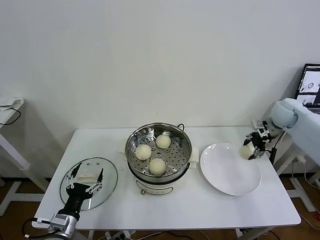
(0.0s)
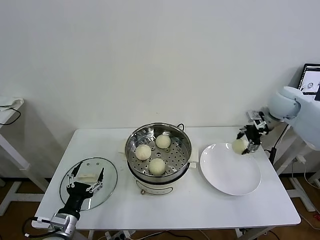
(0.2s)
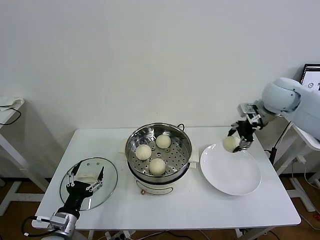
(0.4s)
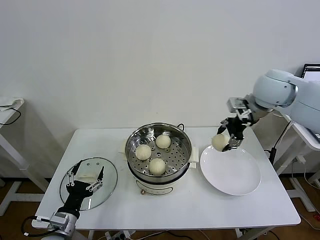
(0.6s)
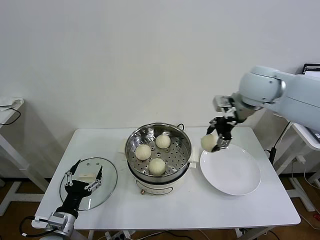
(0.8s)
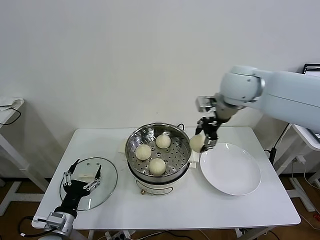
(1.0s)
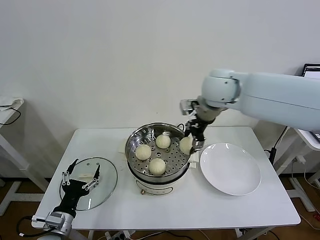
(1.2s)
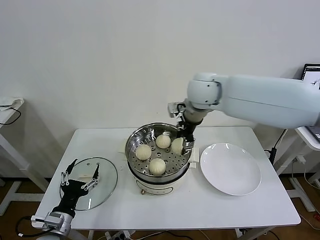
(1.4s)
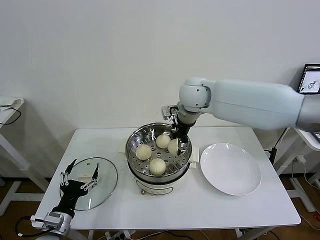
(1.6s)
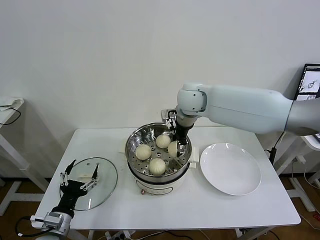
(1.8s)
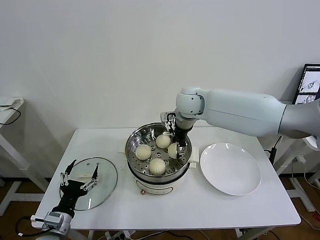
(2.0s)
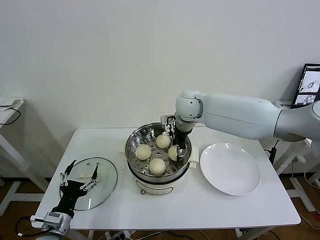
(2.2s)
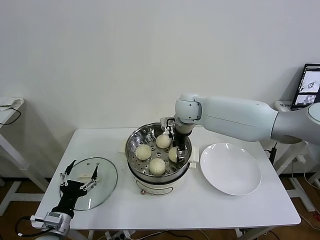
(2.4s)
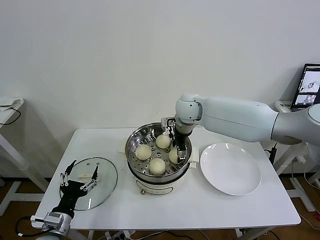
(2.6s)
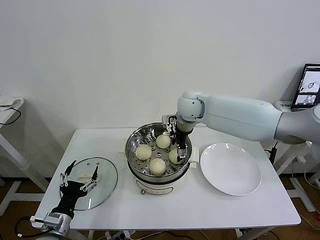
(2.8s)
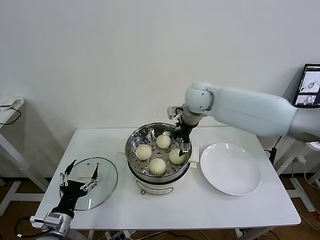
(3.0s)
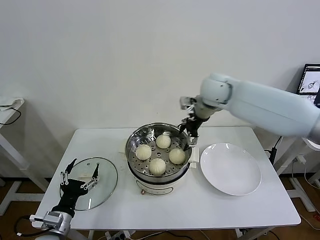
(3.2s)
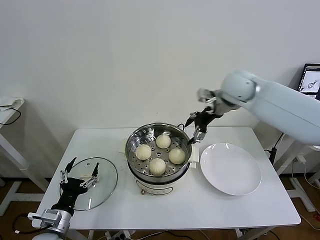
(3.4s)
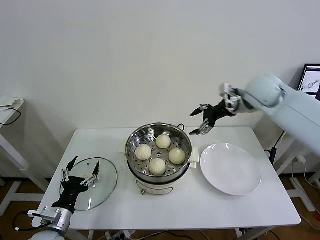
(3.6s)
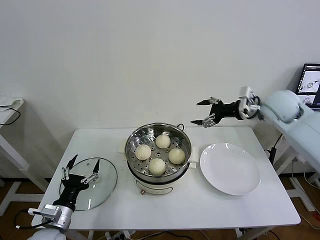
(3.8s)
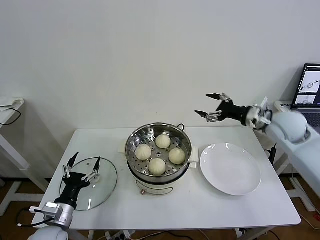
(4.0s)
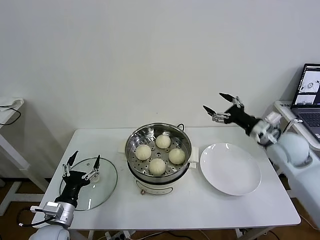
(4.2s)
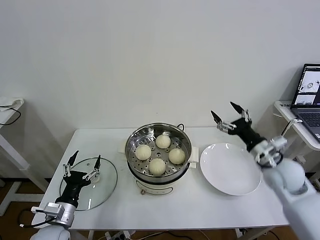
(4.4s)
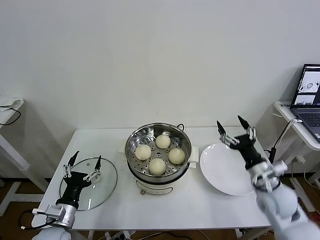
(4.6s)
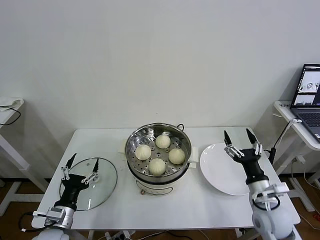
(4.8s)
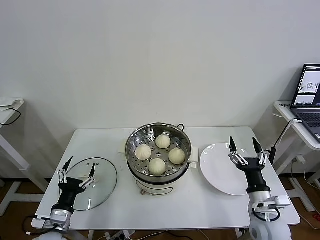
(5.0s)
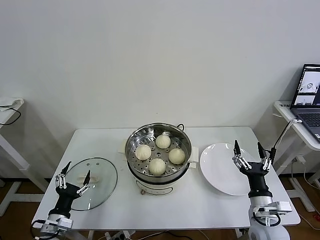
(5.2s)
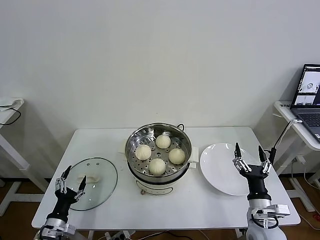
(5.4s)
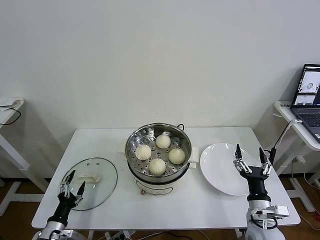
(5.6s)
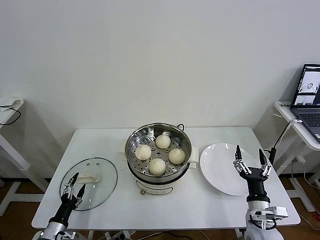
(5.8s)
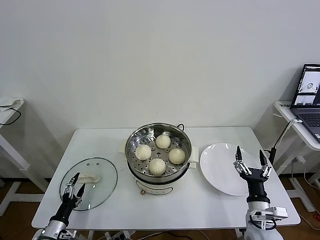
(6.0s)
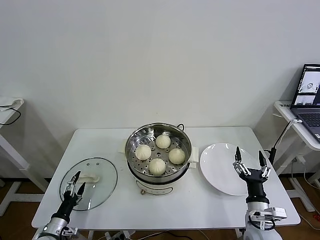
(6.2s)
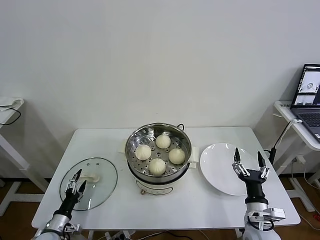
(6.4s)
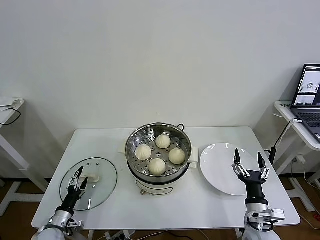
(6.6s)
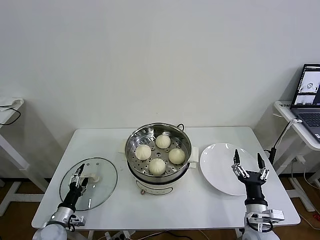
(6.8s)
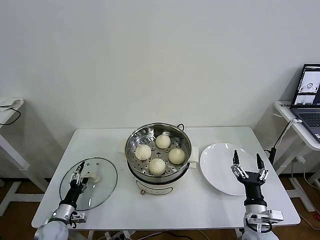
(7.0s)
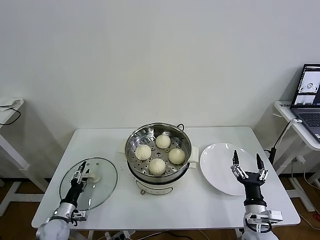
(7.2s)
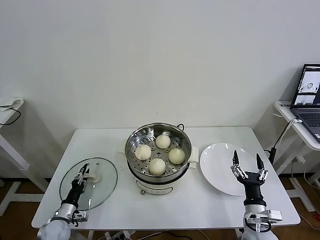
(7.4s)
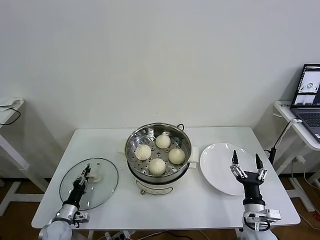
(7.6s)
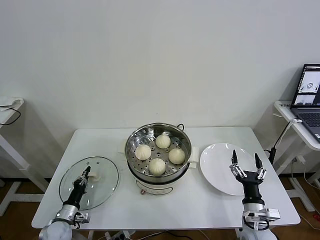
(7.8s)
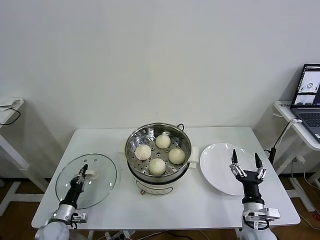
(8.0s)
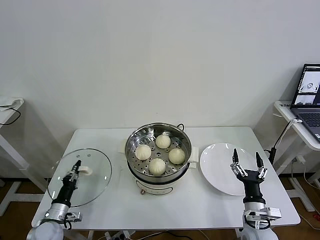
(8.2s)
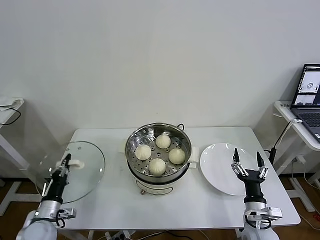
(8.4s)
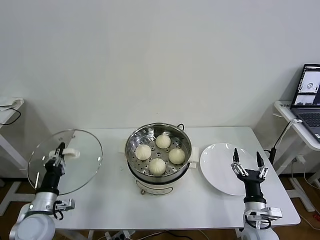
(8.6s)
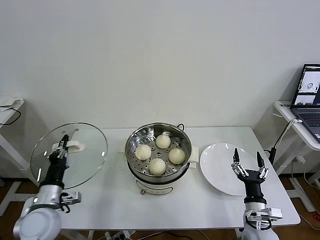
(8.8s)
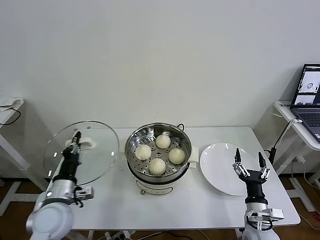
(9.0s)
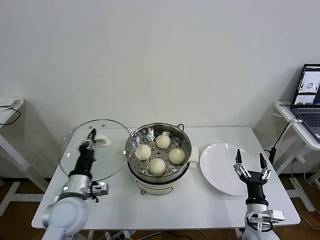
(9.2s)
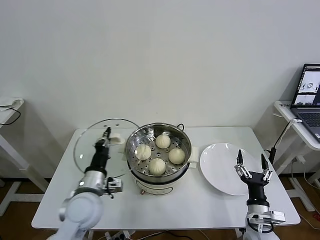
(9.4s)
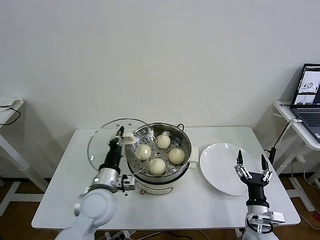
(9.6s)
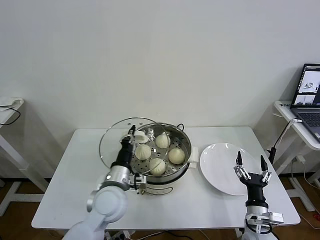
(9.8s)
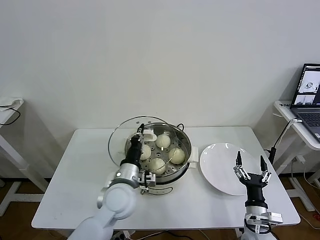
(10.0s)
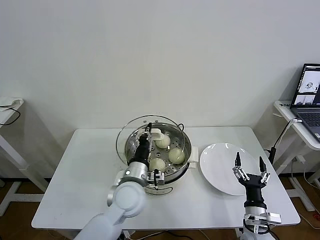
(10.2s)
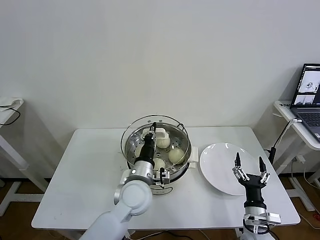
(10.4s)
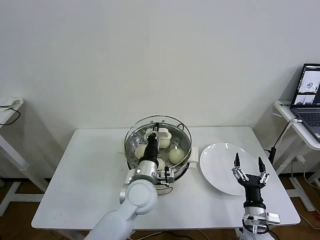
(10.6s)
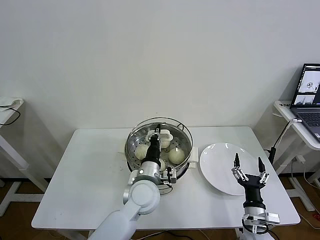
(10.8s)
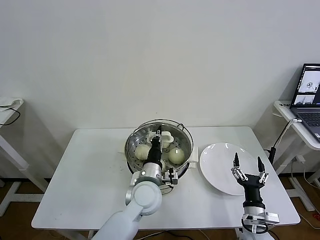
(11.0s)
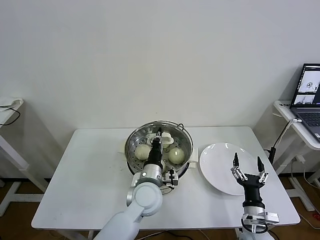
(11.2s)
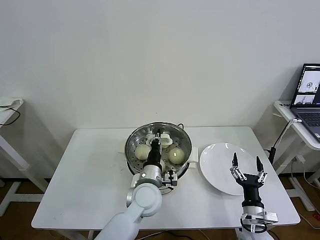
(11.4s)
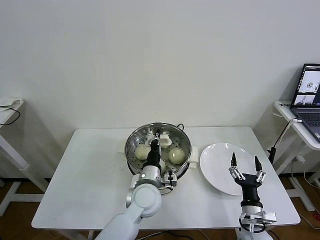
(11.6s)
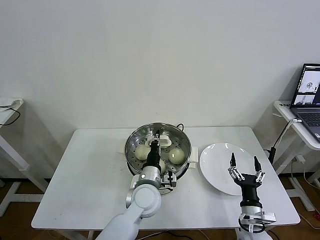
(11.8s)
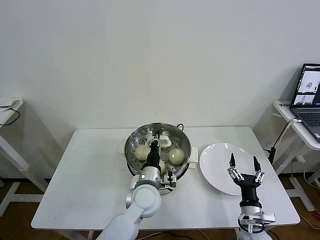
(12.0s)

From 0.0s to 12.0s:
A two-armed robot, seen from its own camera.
Task of the whole recording: take steamed baozi put them in steamer then cover it.
Step, from 0.0s to 2.6s: Place the baozi on the steamer with right gripper.
Step, from 2.8s to 7.6s: Grasp the pot lid with left gripper.
From 0.0s to 1.6s: The right gripper travels to the left by about 35 cm.
From 1.6s to 3.0s: The right gripper opens.
From 3.0s to 4.4s: The right gripper is displaced to the right, backward and downward by about 35 cm.
From 4.4s to 6.0s: The right gripper goes about 20 cm downward and backward. The left gripper moves downward and to the left, about 15 cm.
From 6.0s to 7.6s: The left gripper shifts some 5 cm forward, and closes.
From 7.6s to 9.0s: The left gripper heads upward, covering some 20 cm.
From 9.0s to 10.4s: The left gripper heads to the right, covering about 20 cm.
From 10.4s to 12.0s: The left gripper ends up roughly 5 cm from where it was.

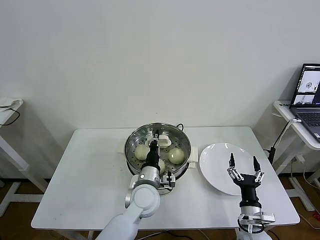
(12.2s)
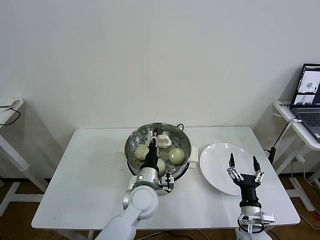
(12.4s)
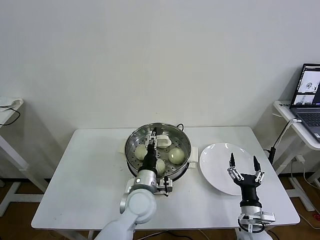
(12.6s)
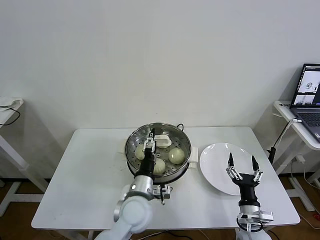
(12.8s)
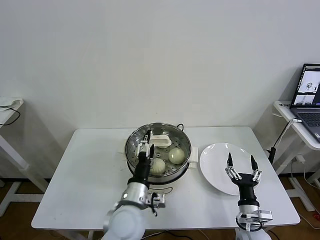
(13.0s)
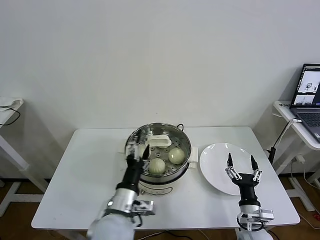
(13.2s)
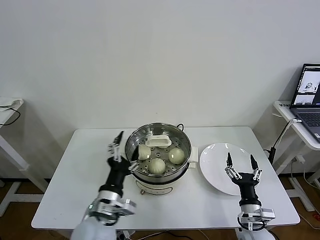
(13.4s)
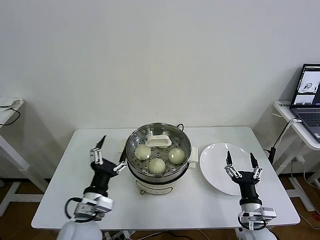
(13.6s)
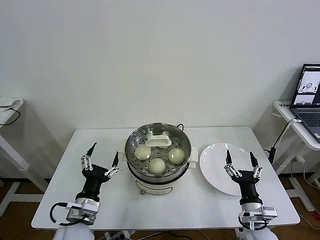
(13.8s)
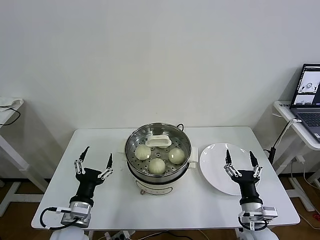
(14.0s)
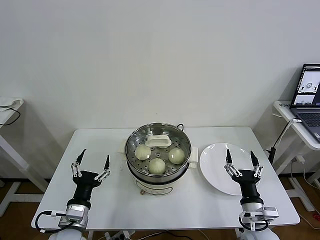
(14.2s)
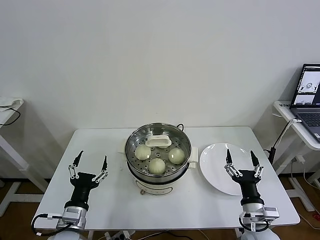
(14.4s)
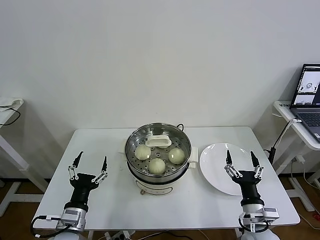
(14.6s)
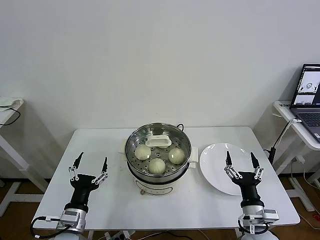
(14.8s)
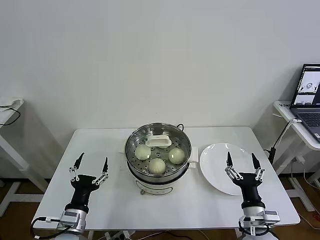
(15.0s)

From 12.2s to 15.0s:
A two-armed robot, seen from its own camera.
Task of the whole recording: take steamed baozi put them in steamer then cover it.
From 12.2s to 13.6s: The left gripper goes some 20 cm to the left, backward and upward, and opens up.
From 13.6s to 15.0s: The left gripper moves to the left and downward, about 10 cm.
